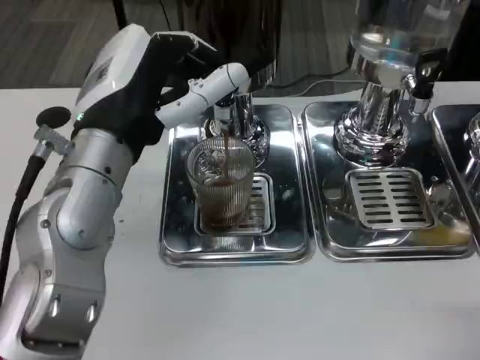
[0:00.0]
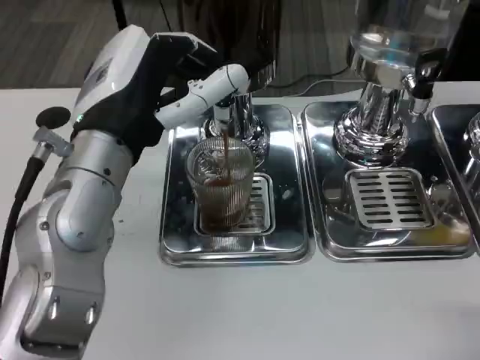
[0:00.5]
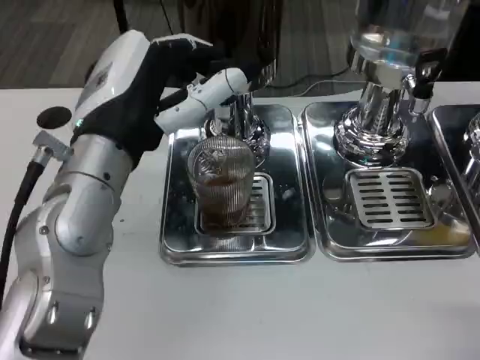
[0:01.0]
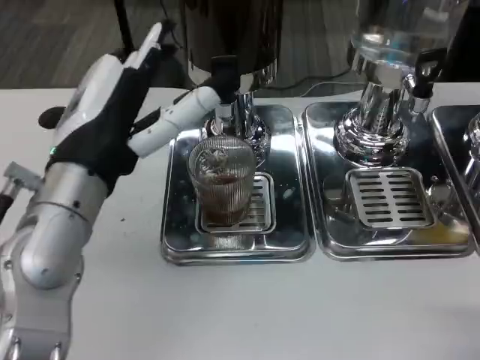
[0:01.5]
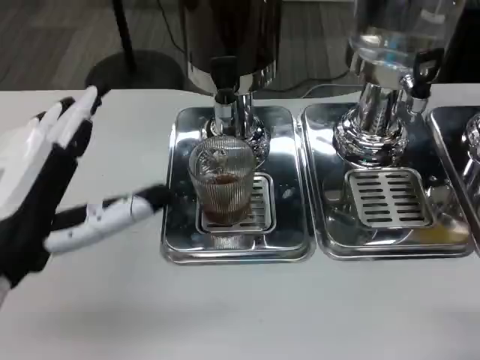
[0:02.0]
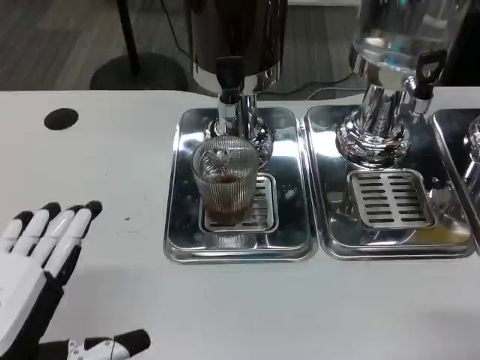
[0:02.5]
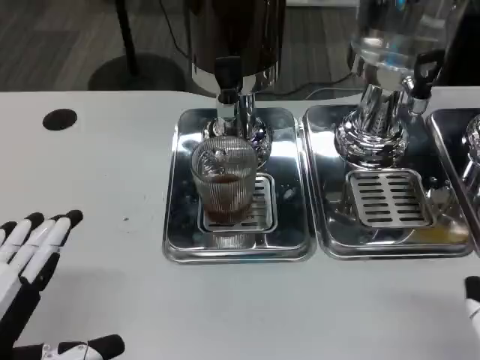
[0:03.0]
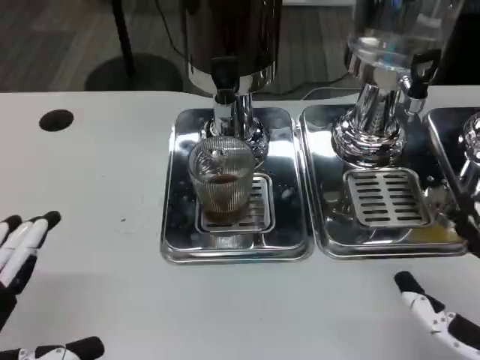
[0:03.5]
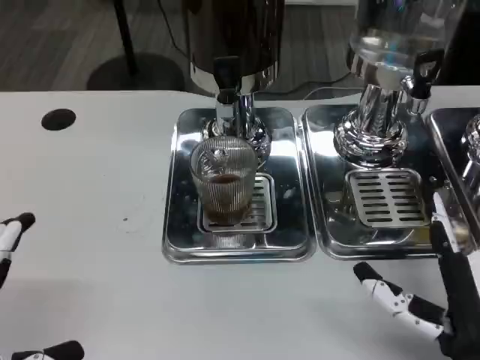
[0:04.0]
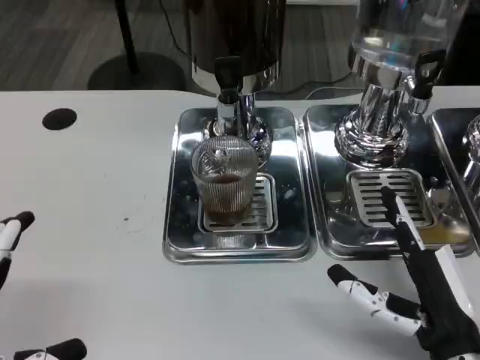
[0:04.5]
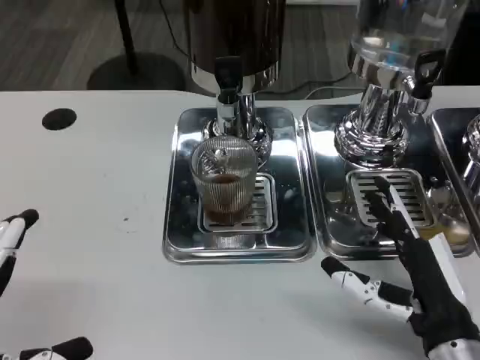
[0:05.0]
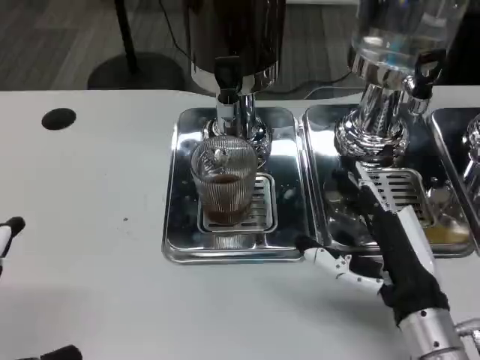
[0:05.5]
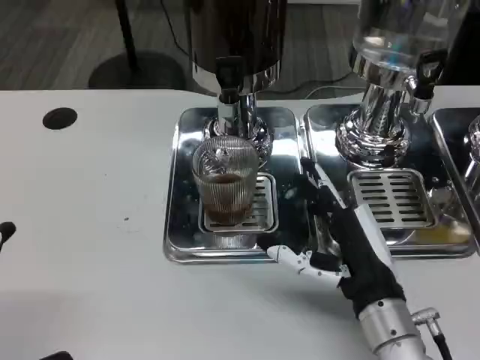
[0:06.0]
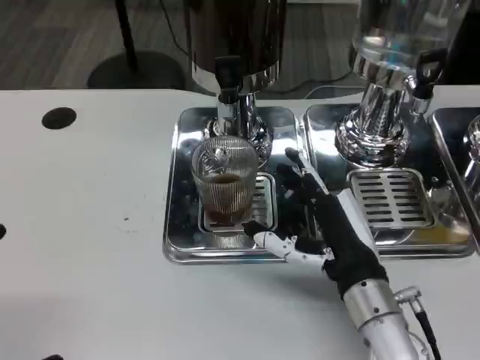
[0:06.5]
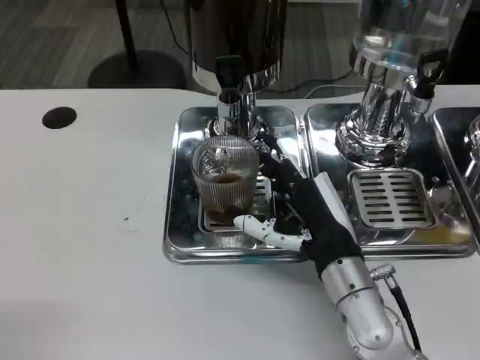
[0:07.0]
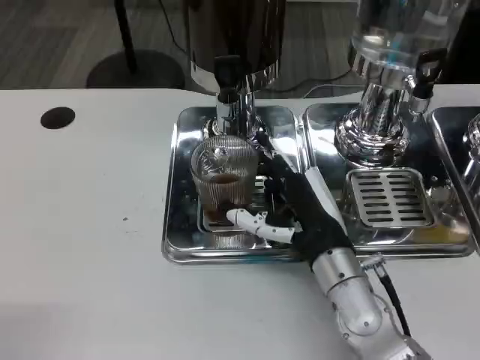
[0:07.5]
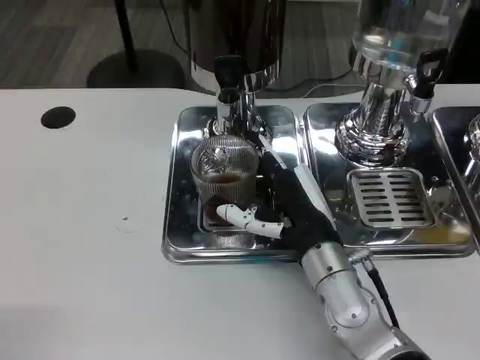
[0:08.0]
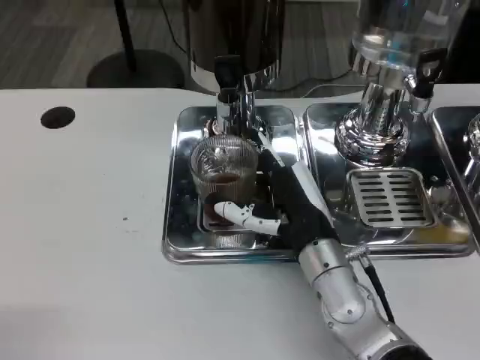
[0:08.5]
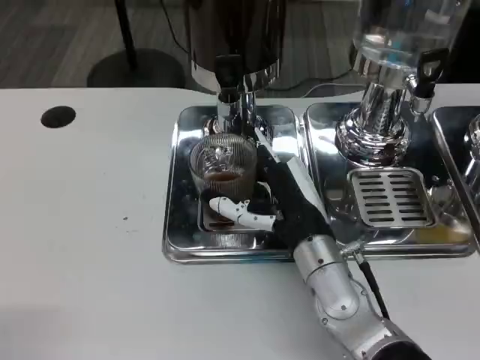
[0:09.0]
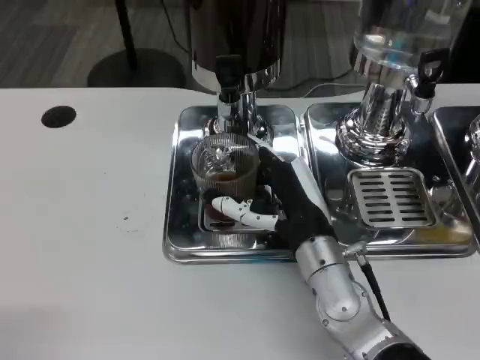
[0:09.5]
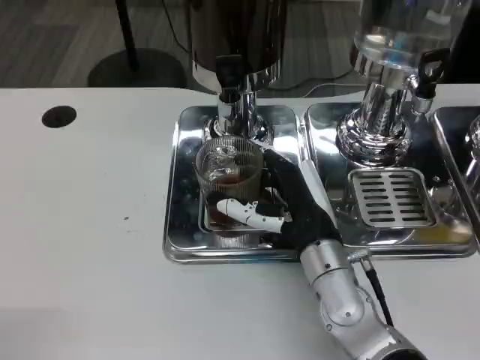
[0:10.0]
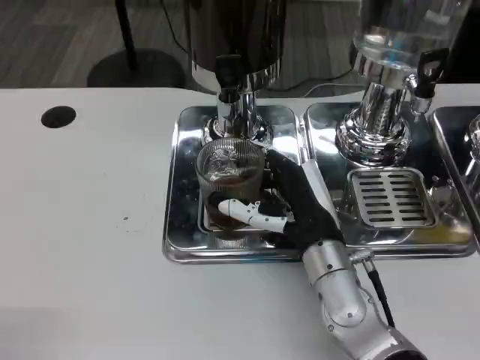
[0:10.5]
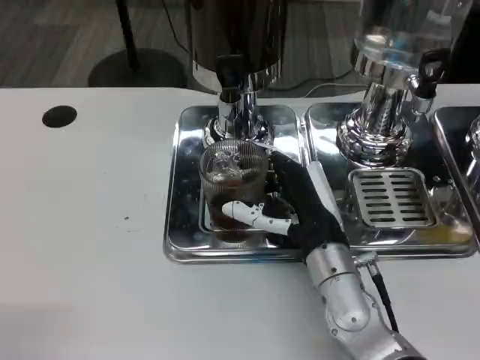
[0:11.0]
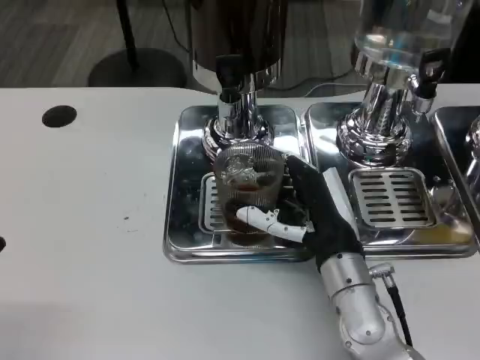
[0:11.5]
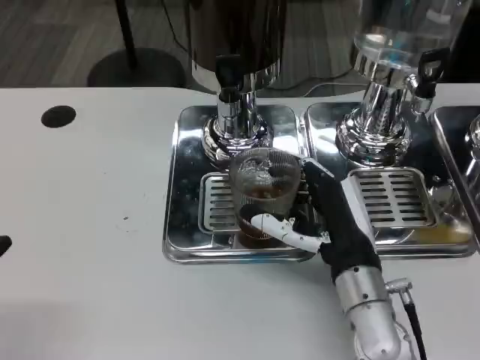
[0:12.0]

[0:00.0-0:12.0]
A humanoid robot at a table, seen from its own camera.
Task of the whole recording: Grasp the cup under the faucet to collect the drink, then remove the cup.
0.0 to 2.0 s: The left hand shifts some 15 cm backward and to the left.
2.0 to 4.0 s: The right hand heads forward and downward, covering about 10 cm. Meanwhile the left hand goes about 10 cm backward and to the left.
4.0 to 6.0 s: The right hand moves forward and to the left, some 10 cm.
6.0 to 8.0 s: The right hand shifts about 5 cm forward.
8.0 to 10.0 s: Both hands stay about where they are.
10.0 to 12.0 s: The hands move only a little.

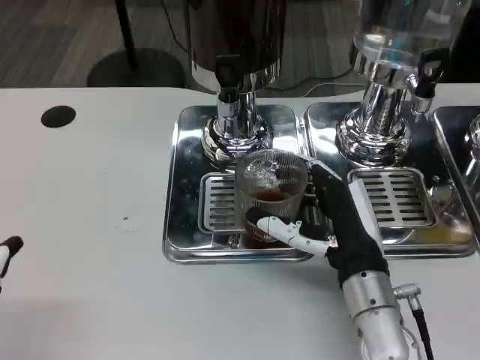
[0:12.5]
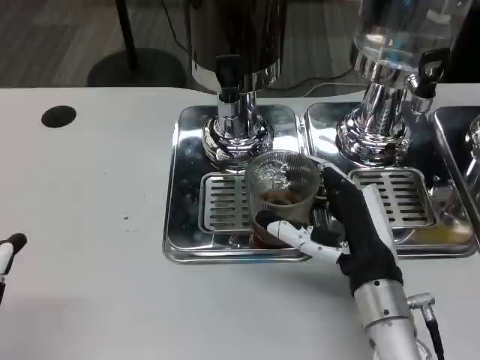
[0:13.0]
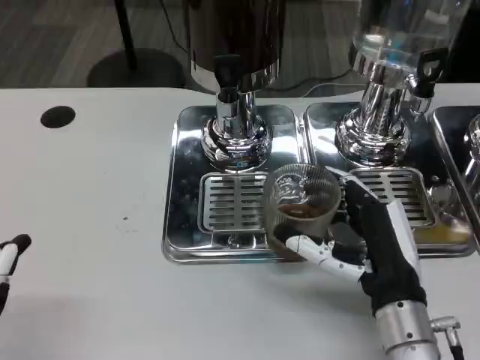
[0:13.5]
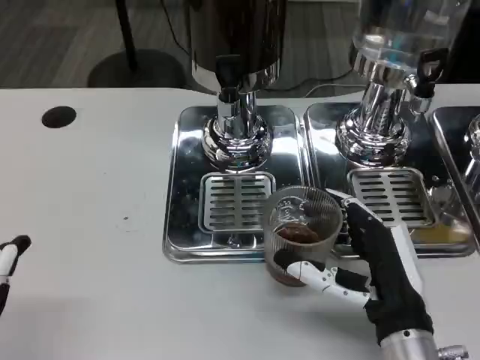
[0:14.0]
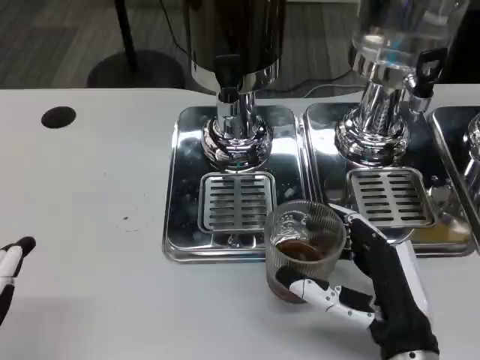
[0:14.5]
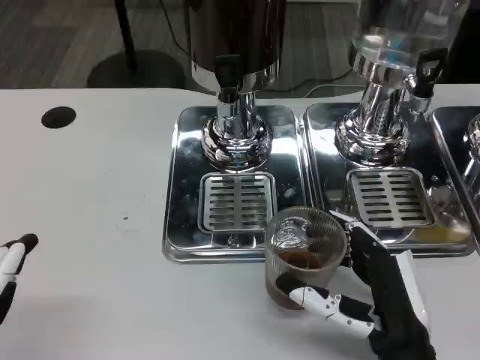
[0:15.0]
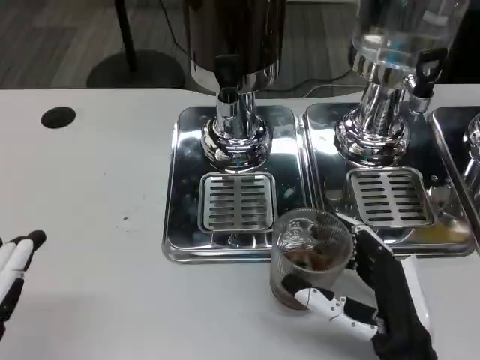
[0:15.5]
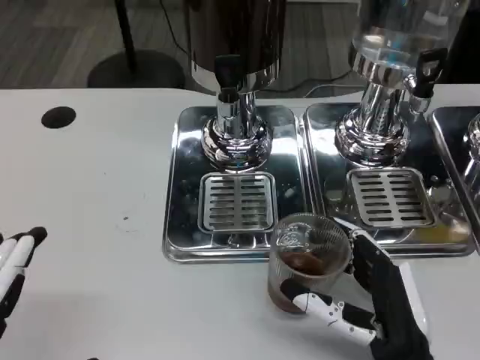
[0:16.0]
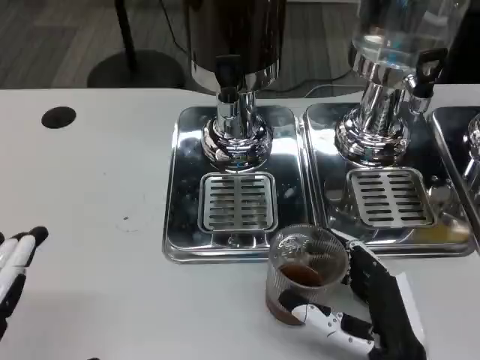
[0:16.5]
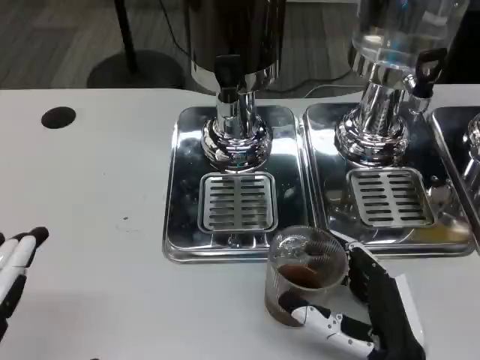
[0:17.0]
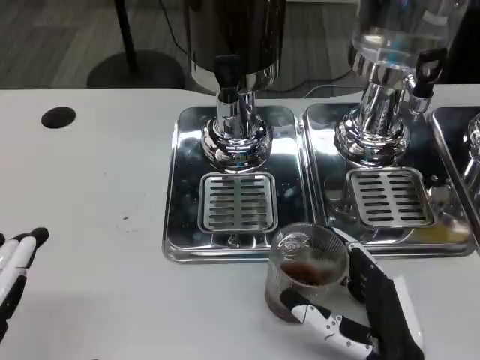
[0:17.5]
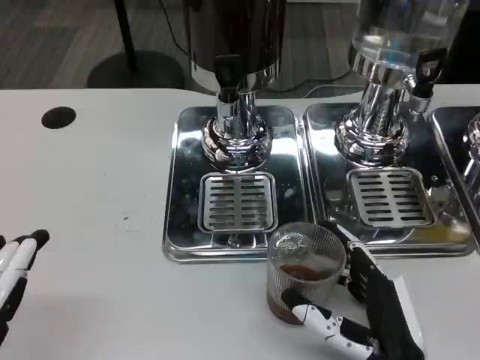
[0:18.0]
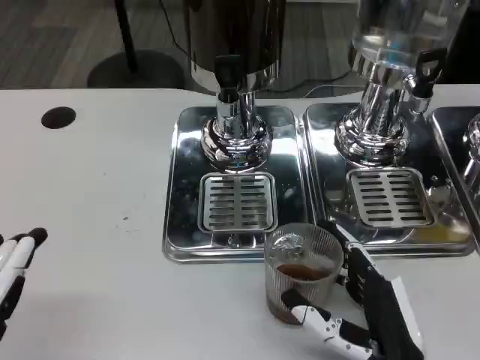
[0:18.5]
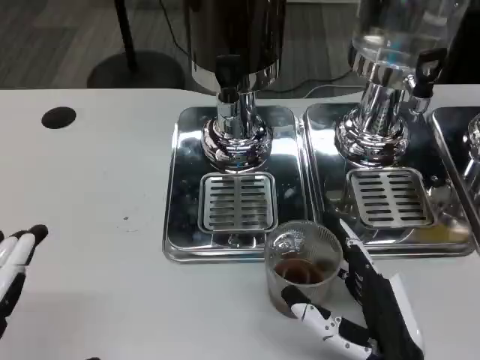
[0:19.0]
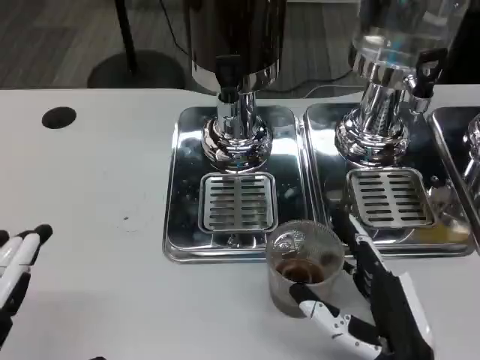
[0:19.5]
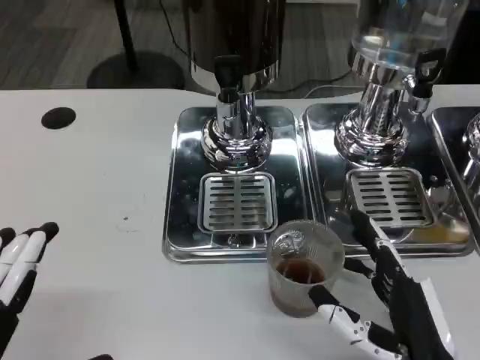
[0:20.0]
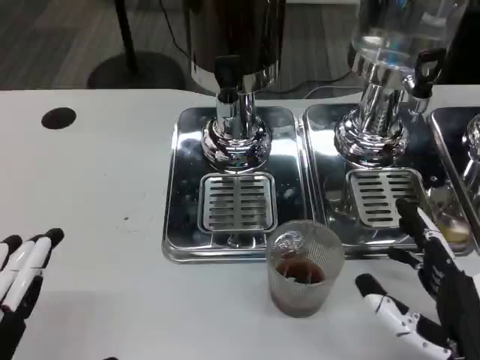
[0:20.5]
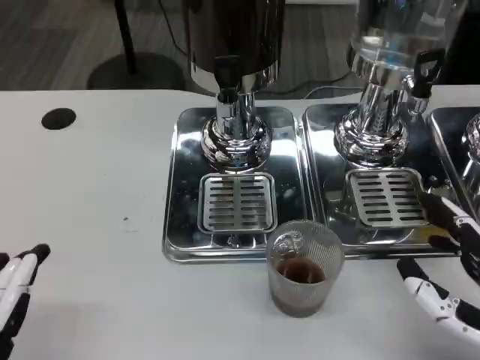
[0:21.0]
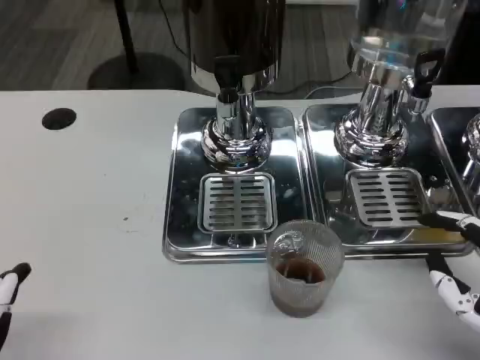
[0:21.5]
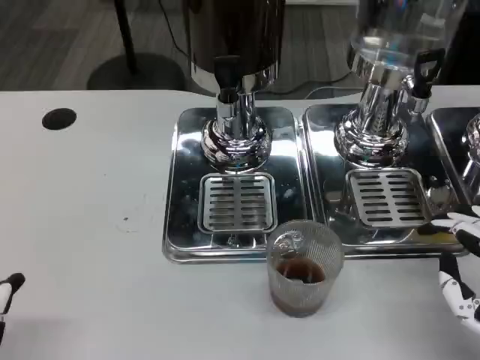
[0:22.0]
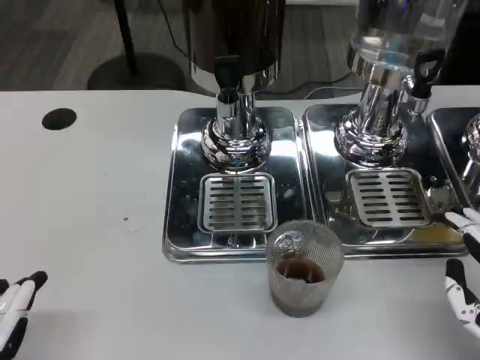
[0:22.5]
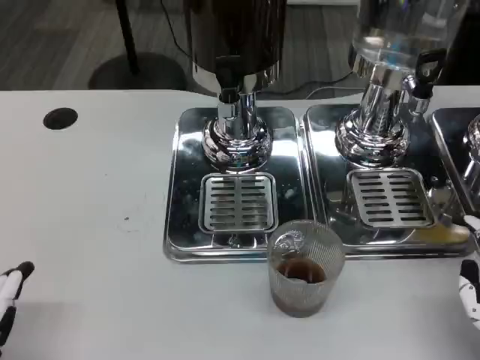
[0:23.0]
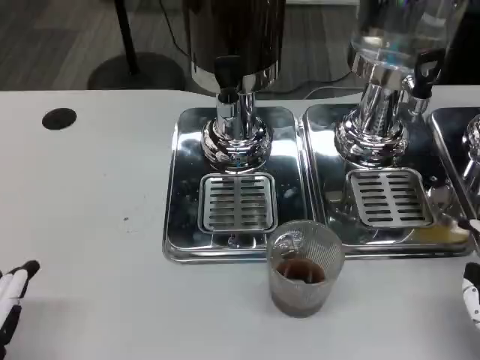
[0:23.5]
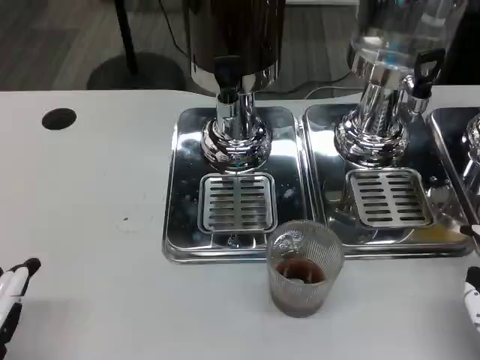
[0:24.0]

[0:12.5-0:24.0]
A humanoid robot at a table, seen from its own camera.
Task of the whole recording: Grasp the cup under the faucet to collect the drink, then remove the cup.
12.5 to 14.5 s: The right hand is displaced backward by approximately 10 cm.
14.5 to 16.5 s: The hands move only a little.
16.5 to 18.5 s: The two hands keep their place.
18.5 to 20.0 s: The hands make only small movements.
20.0 to 22.0 s: The left hand ends up approximately 5 cm from where it was, while the right hand is displaced to the right and upward by roughly 15 cm.
22.0 to 24.0 s: The hands stay close to where they were, moving slightly.

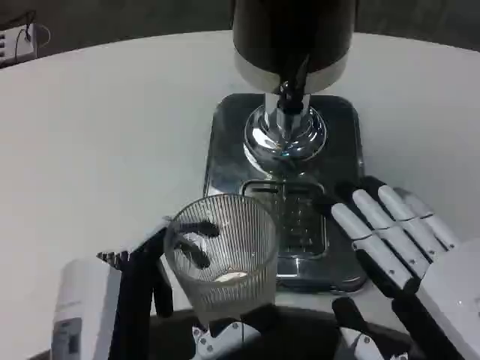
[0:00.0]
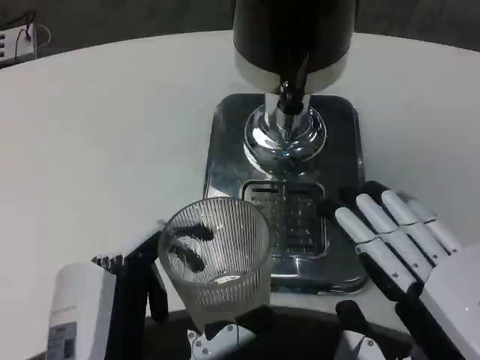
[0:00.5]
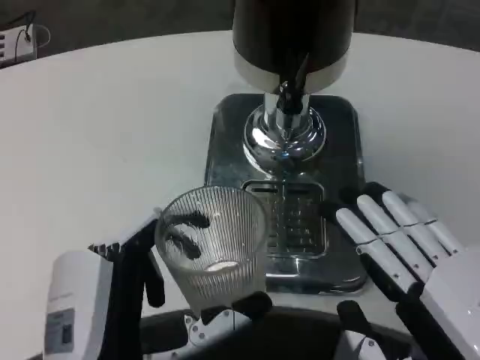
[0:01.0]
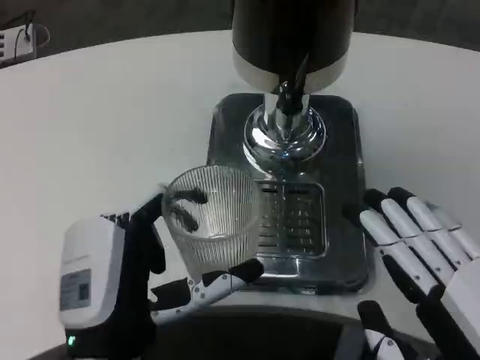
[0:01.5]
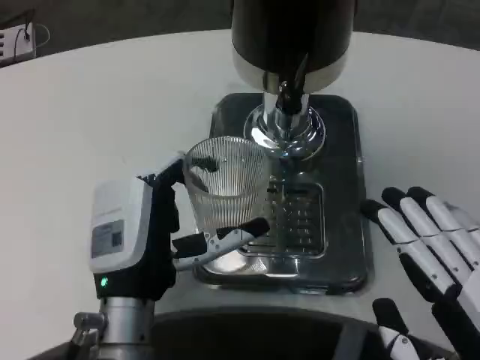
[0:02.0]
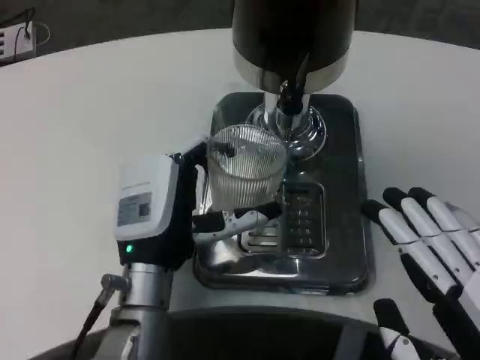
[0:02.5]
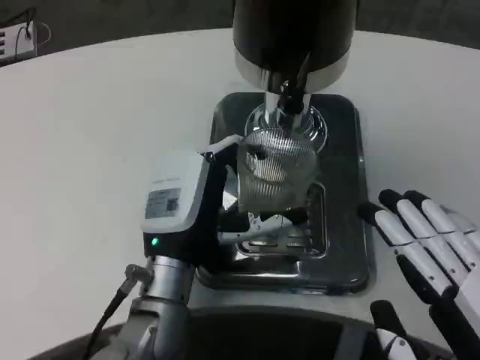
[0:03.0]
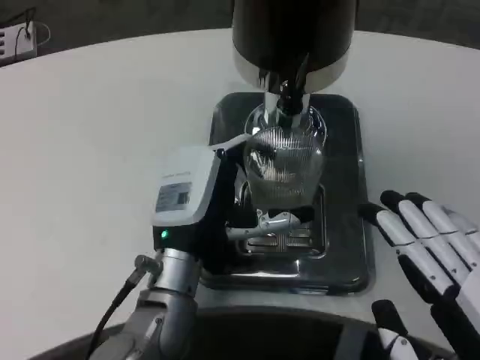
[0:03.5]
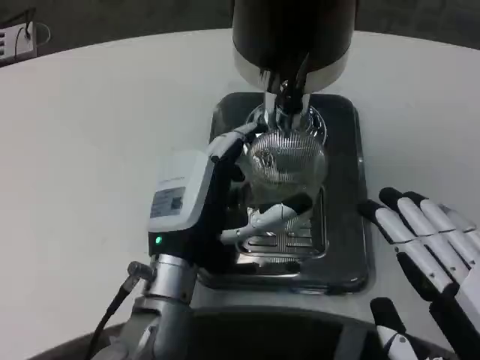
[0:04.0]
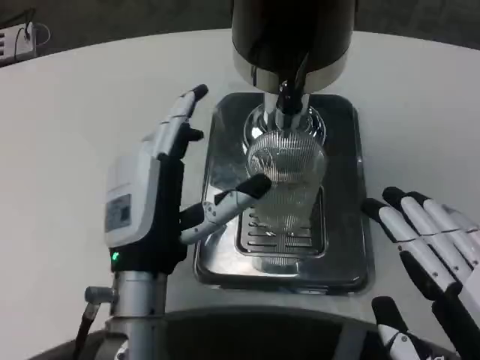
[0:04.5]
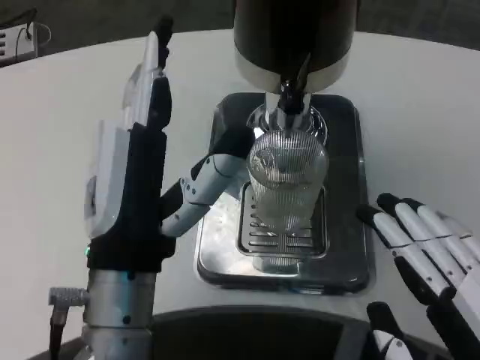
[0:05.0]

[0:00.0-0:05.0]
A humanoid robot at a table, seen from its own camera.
Task of the whole recording: Grasp the cup under the faucet to collect the drink, then remove the cup.
0.0 to 2.5 s: The left hand moves forward, approximately 15 cm.
2.5 to 5.0 s: The left hand goes some 10 cm backward and upward.
